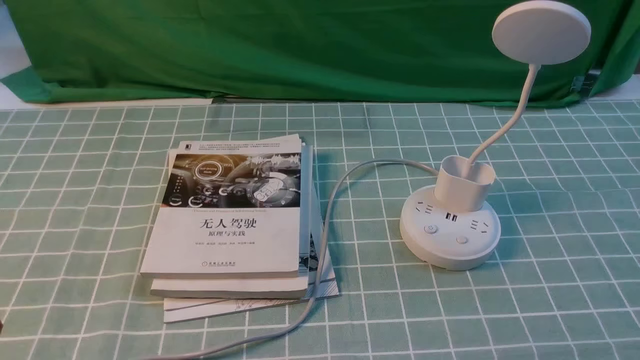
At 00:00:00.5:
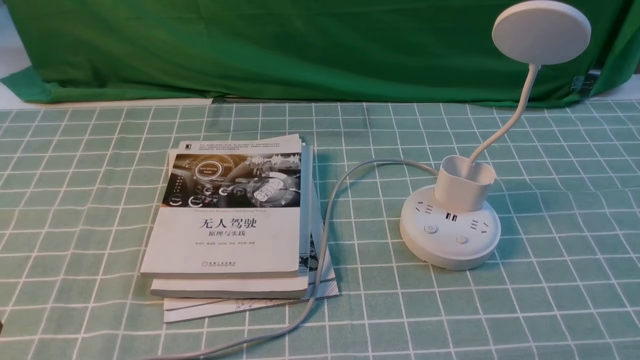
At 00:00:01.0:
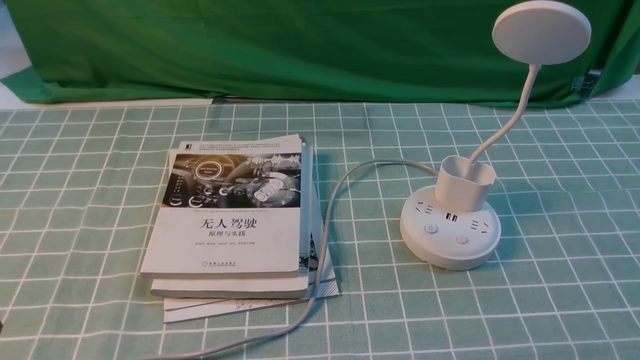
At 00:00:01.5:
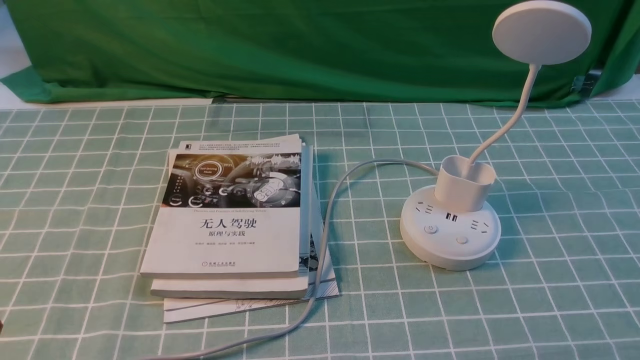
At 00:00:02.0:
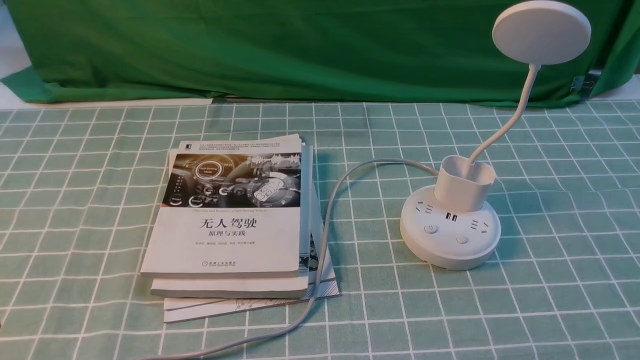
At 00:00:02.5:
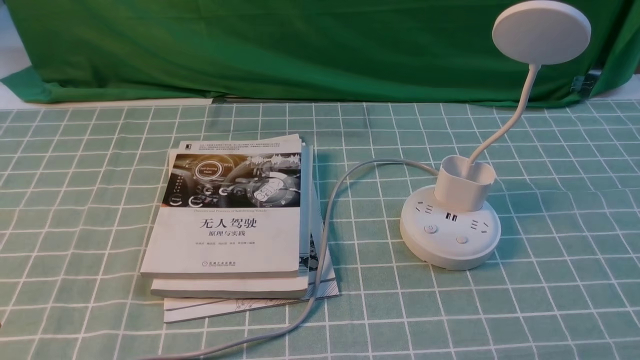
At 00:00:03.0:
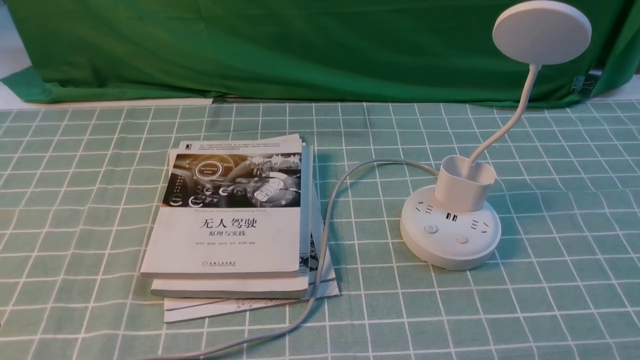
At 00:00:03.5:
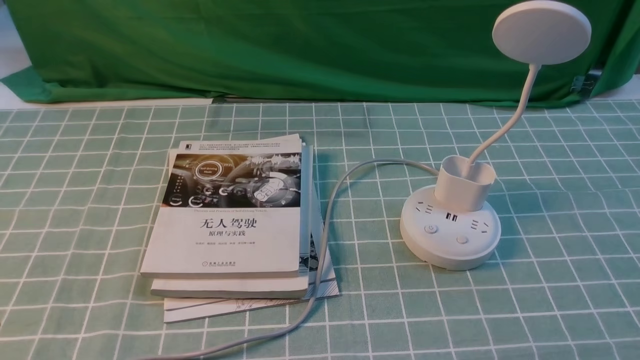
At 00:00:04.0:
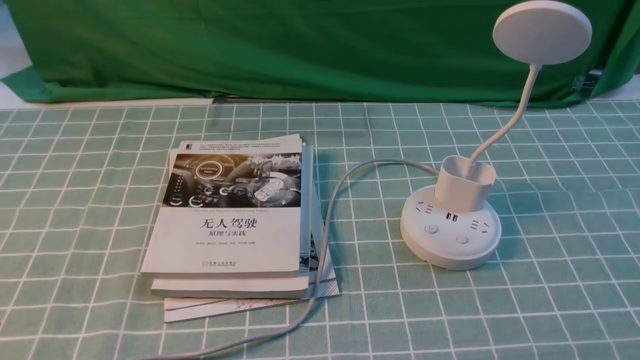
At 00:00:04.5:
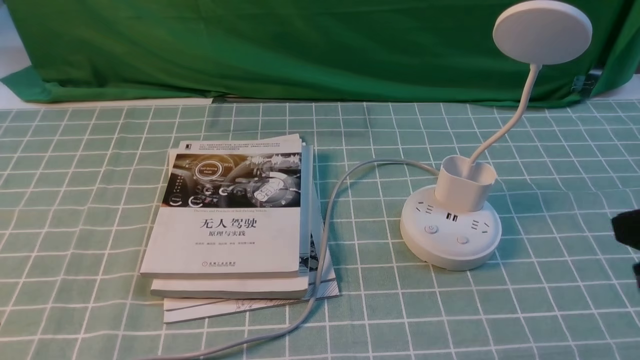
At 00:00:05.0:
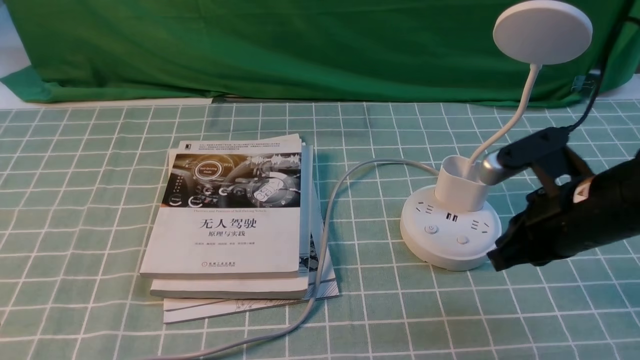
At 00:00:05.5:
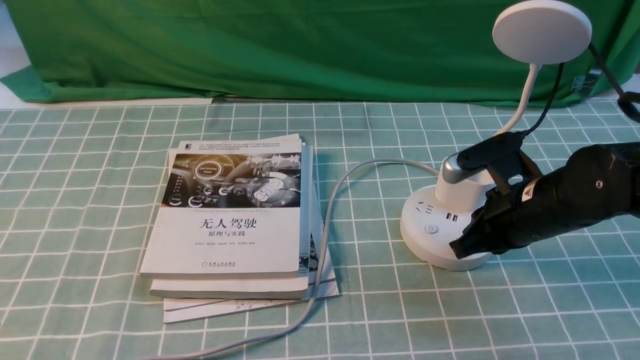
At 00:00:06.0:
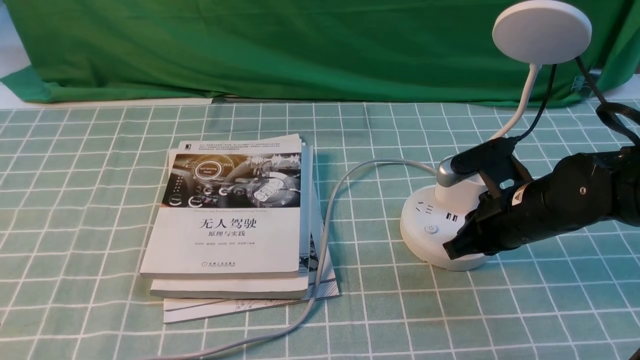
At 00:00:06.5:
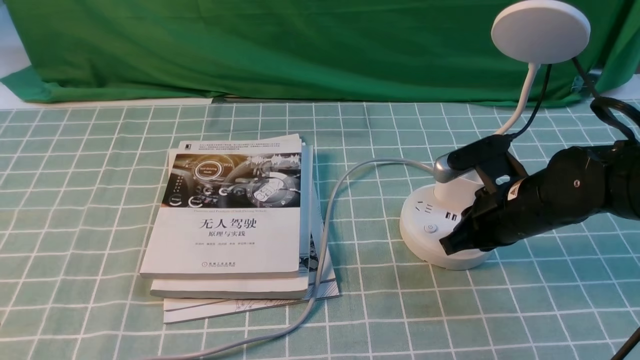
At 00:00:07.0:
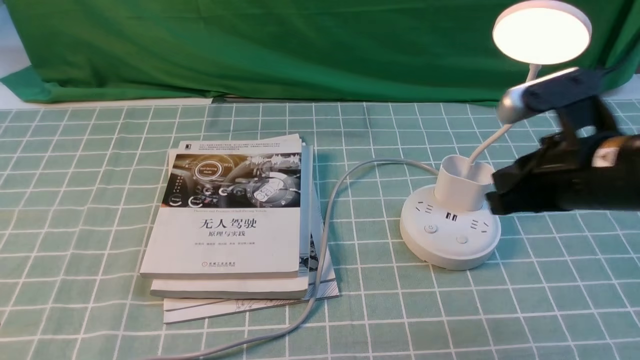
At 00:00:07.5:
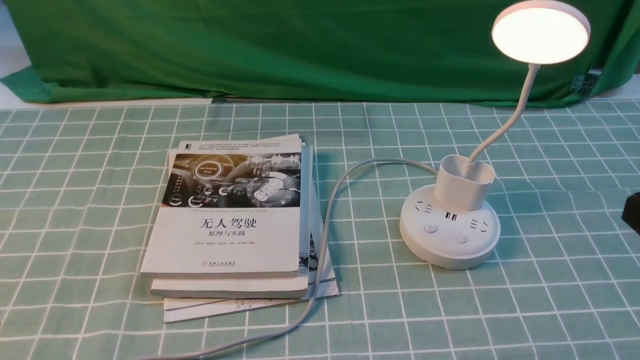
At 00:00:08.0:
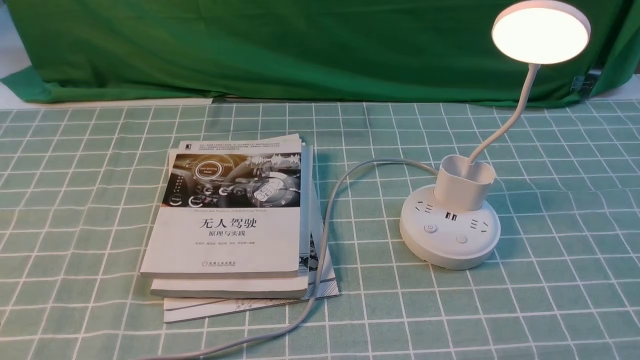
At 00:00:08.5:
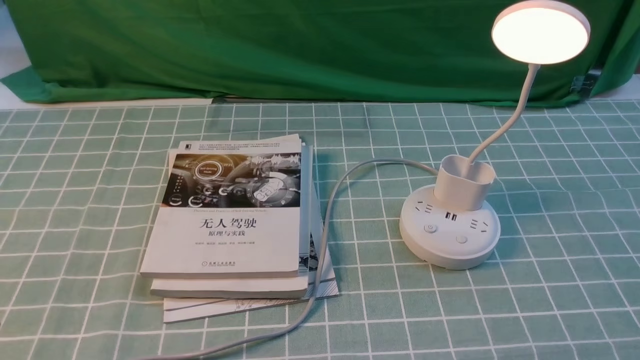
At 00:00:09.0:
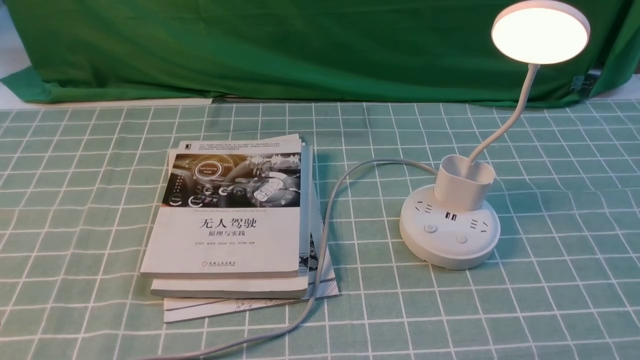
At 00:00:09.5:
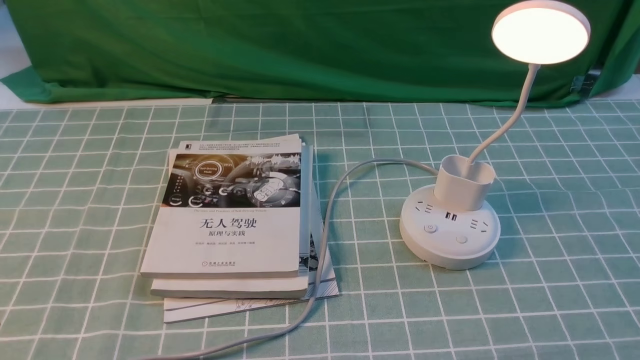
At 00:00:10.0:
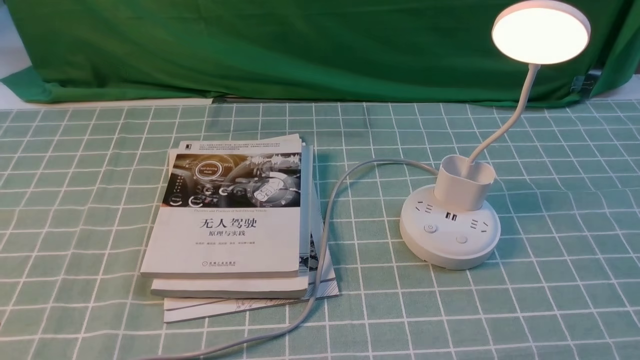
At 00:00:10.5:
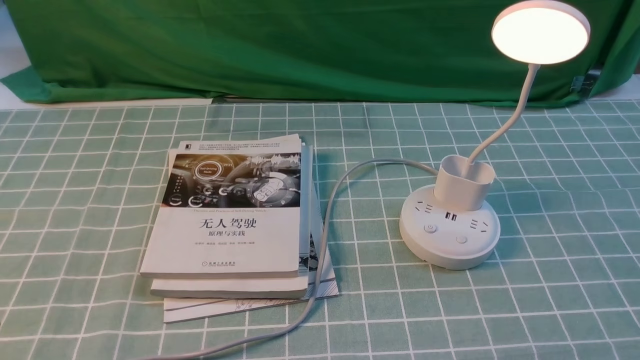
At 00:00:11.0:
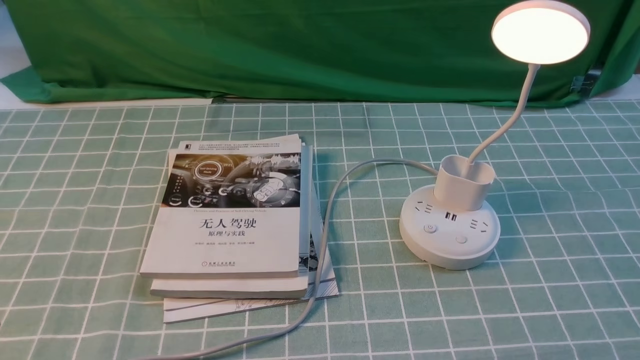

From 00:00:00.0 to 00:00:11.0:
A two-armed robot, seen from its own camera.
Step, from 00:00:00.0 to 00:00:06.5: use the right arm to press the button switch on the lamp holder.
From 00:00:00.0 to 00:00:02.0: Both grippers stay about where they are.
From 00:00:03.5 to 00:00:05.5: The right gripper is displaced forward and to the left by roughly 30 cm, and closes its fingers.
From 00:00:05.5 to 00:00:07.5: The right gripper shifts about 25 cm backward and upward.
From 00:00:09.0 to 00:00:11.0: Both grippers stay about where they are.
